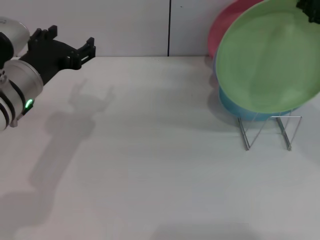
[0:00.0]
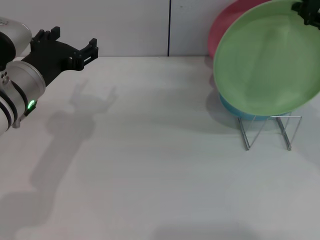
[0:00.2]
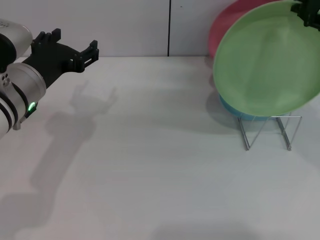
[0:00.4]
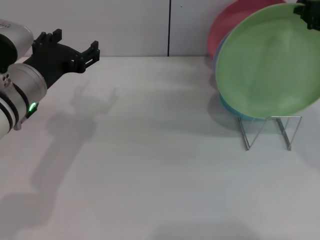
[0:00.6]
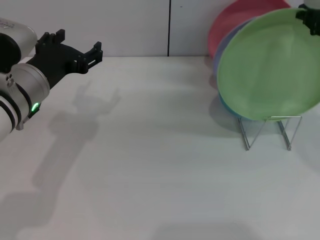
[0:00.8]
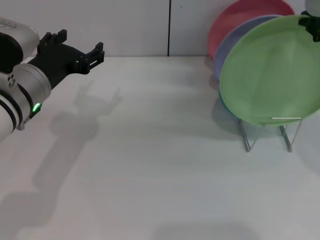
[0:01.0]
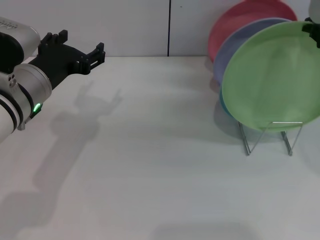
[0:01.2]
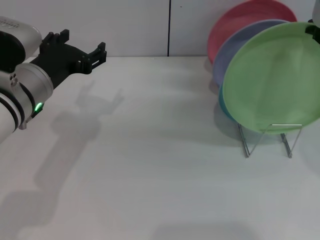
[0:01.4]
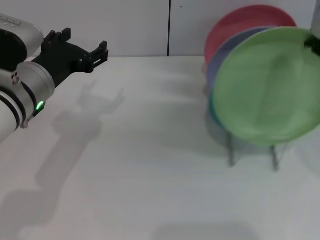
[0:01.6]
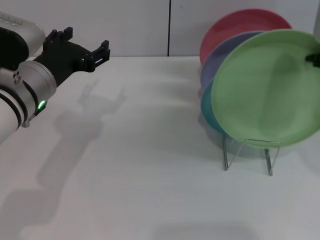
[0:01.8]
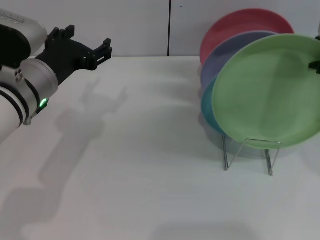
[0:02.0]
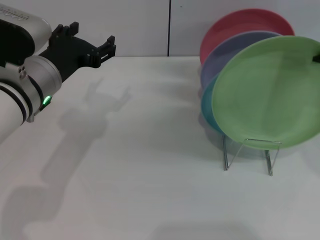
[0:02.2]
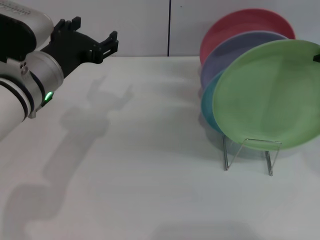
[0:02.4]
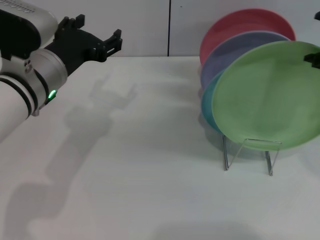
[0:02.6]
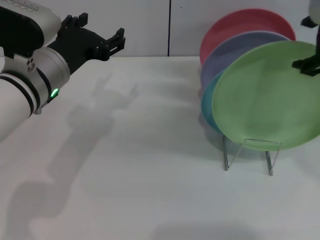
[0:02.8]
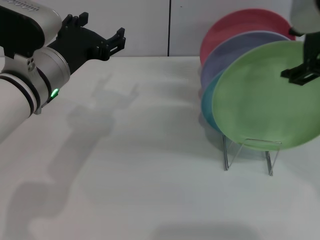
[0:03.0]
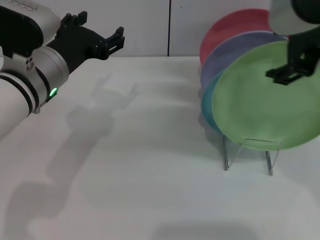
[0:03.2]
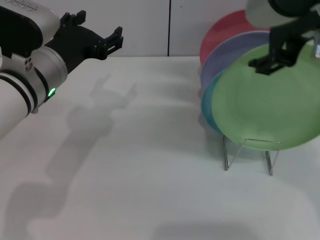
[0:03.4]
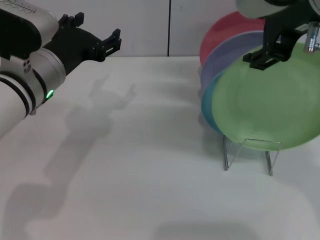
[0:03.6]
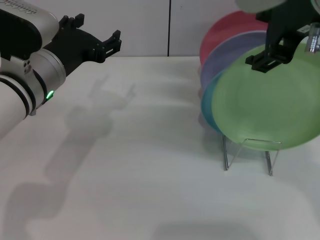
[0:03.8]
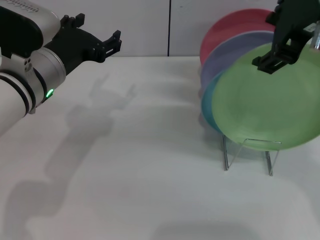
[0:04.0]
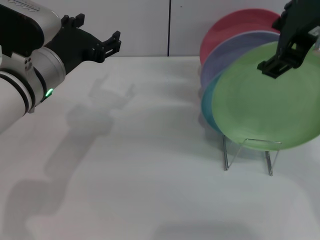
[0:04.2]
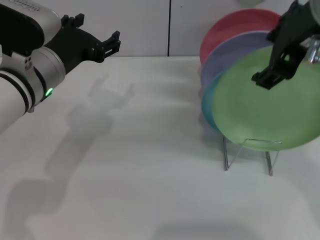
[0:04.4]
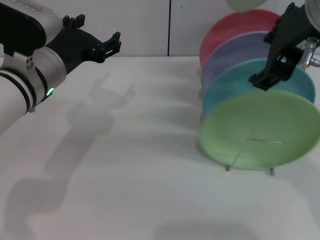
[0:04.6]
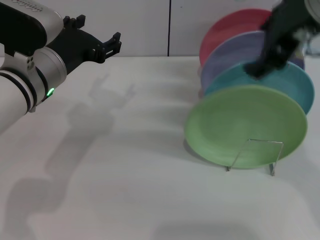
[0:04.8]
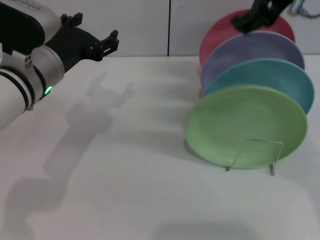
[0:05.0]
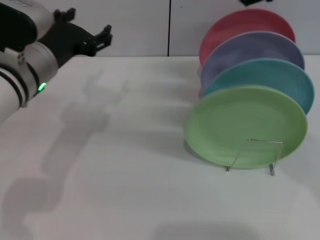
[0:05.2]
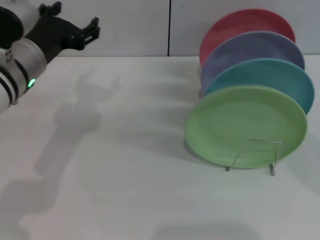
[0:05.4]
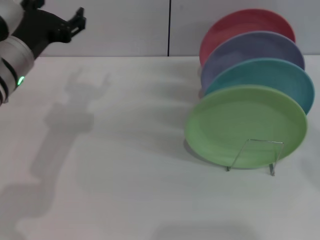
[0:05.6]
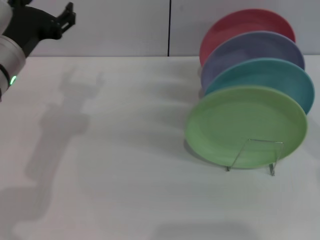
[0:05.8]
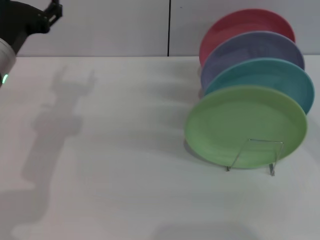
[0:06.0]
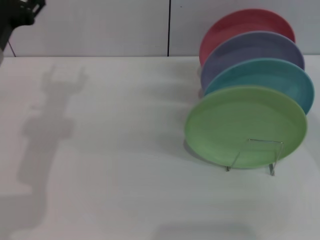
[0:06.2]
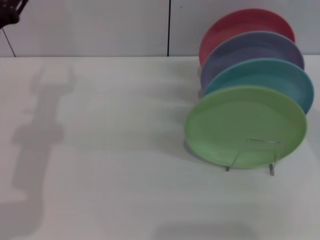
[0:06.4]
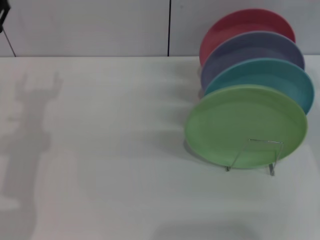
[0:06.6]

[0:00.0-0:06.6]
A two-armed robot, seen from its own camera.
Task of the whole recording: Grip the plate with one hand, pass it to the other, then set it on the shelf.
Step, 0:00.0 to 0:05.0: Place the plate on the shelf with the right gripper.
0:00.0 to 0:01.6: The grippers stay close to where they were, moving slightly.
0:01.6 to 0:03.2: The right gripper is displaced to the left by some 5 cm, and opens up.
0:03.2 to 0:05.0: The grippers stay close to where they were, moving slightly.
0:05.0 to 0:06.6: The right gripper is displaced downward and to the right by some 20 cm, while the left gripper travels to the left by approximately 10 cm.
